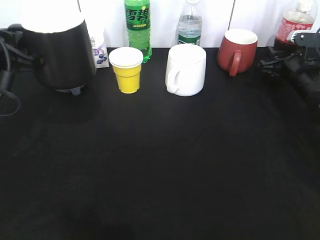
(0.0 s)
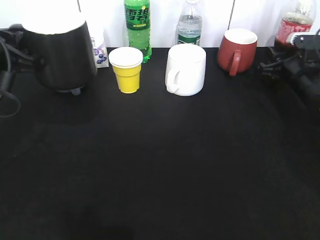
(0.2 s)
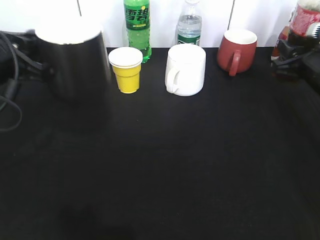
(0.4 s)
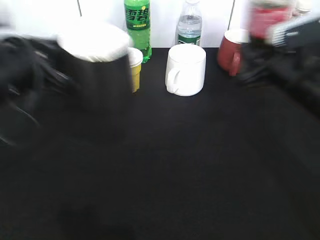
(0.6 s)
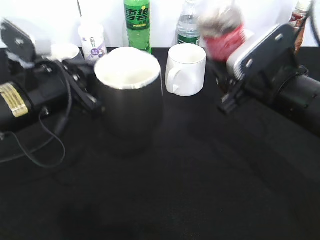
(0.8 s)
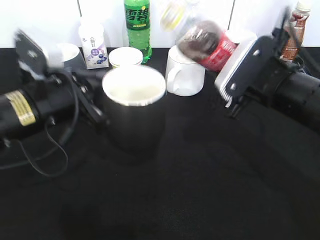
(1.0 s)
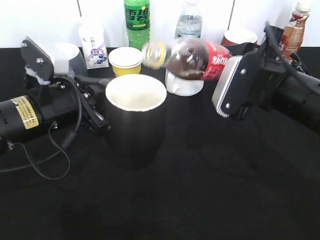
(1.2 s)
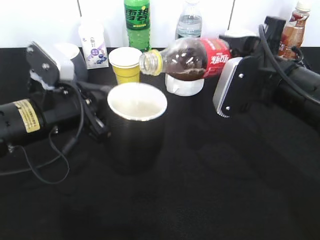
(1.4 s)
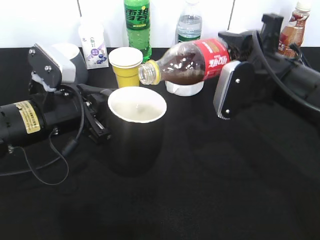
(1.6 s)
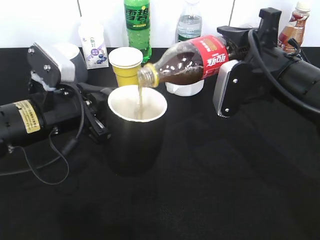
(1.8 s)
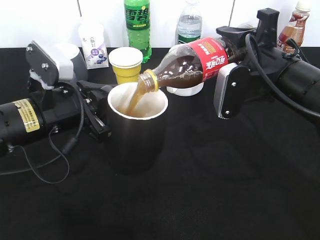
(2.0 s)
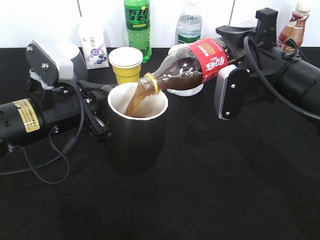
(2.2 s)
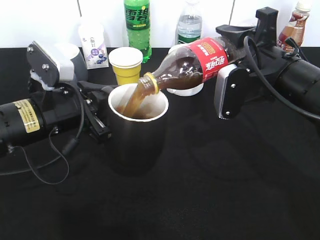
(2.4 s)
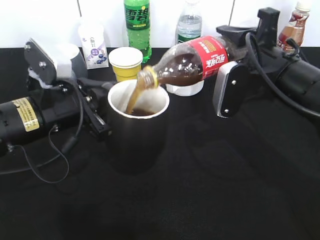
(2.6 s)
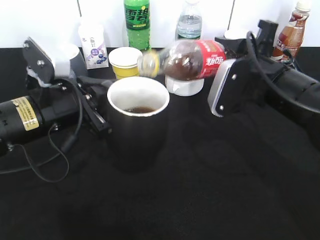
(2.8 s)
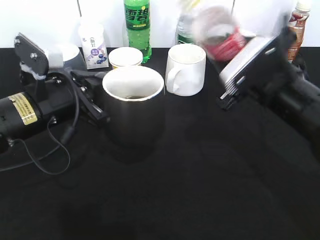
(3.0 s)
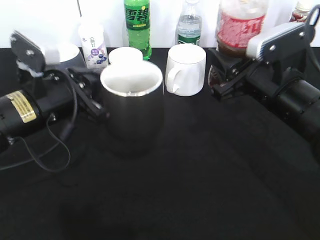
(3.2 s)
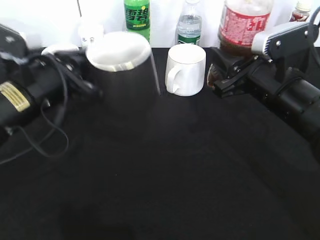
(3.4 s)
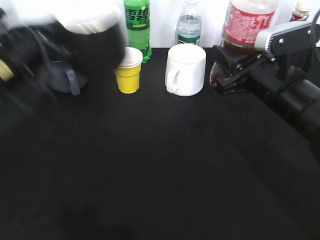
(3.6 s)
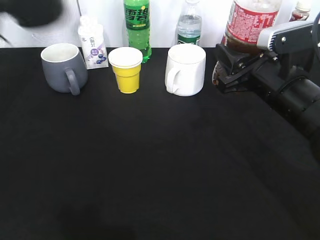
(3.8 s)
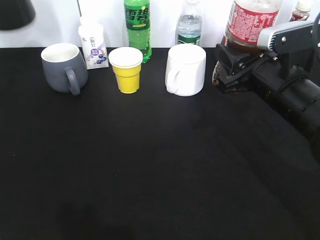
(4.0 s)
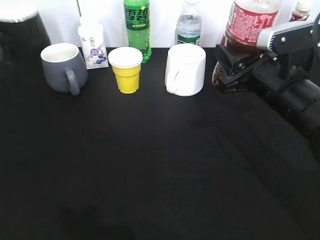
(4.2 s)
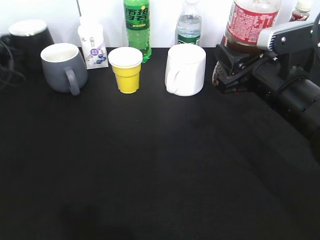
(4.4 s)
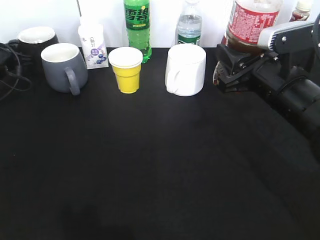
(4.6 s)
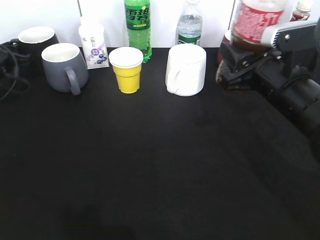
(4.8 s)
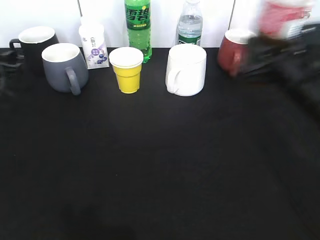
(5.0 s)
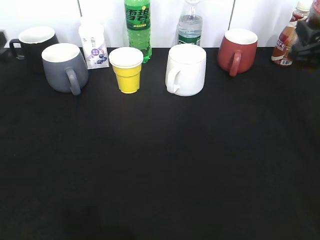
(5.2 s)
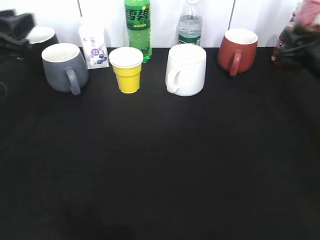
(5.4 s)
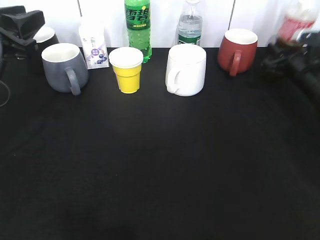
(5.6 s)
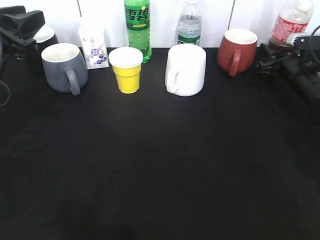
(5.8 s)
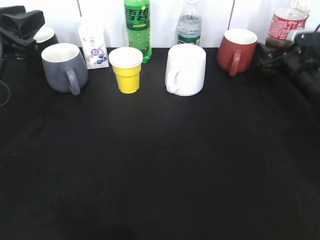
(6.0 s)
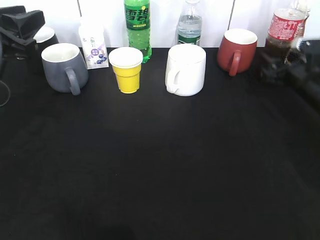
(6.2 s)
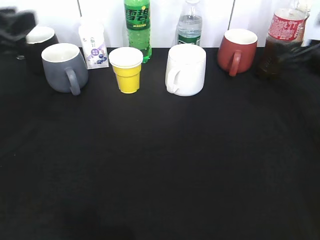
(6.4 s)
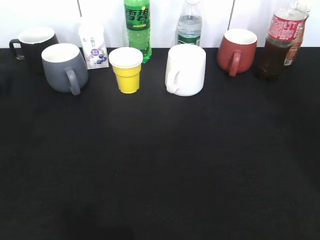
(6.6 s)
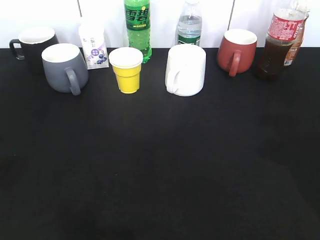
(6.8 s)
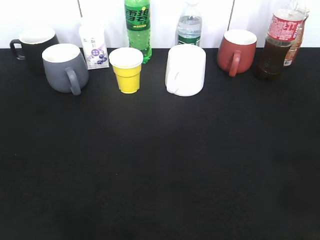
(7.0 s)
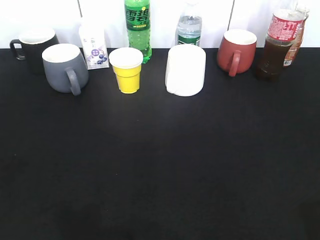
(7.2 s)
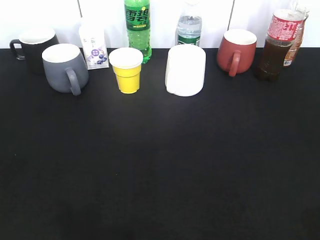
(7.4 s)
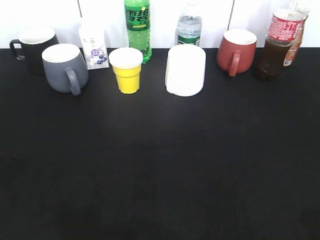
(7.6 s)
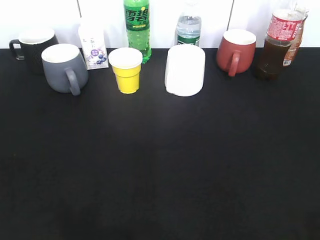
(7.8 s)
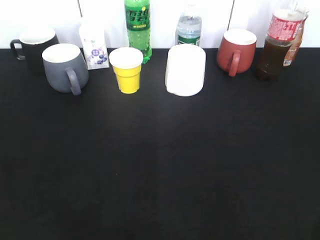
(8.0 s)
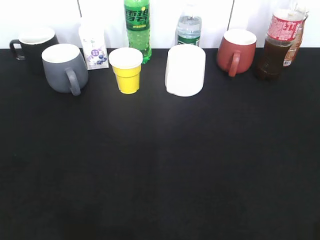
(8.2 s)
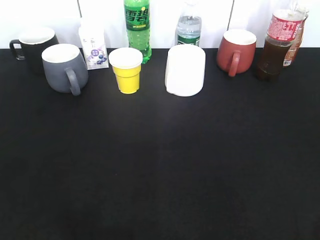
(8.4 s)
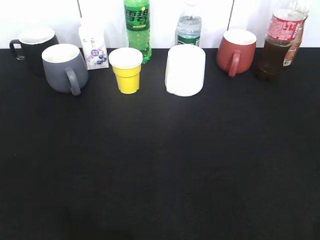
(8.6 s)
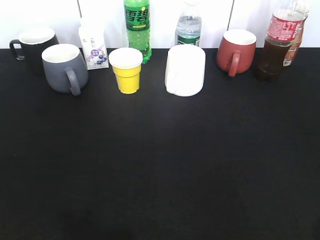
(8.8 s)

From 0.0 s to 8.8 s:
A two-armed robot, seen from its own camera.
Step, from 0.4 s to 2.8 s: Pour the cola from bottle to cup with right gripper.
Step, from 3.0 s to 5.2 s: Place the black cup on the table with left gripper.
Step, from 5.4 s to 6.4 s: Place the cola bottle on the table with right gripper.
From 0.0 s to 1.4 s: The left gripper is displaced to the right and downward by some 10 cm. Meanwhile the right gripper shifts approximately 20 cm backward, to the left and upward.
From 3.0 s to 4.4 s: The left gripper travels forward and to the left by some 30 cm.
From 4.4 s to 5.8 s: The right gripper heads forward, to the right and downward, covering some 20 cm, and opens its fingers. Meanwhile the left gripper heads backward, upward and to the right, covering about 25 cm, and opens up.
From 5.8 s to 7.4 s: The left gripper travels backward by about 25 cm. The right gripper moves backward and upward, some 40 cm.

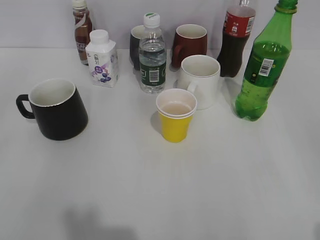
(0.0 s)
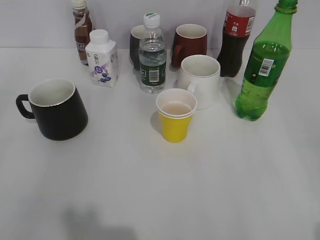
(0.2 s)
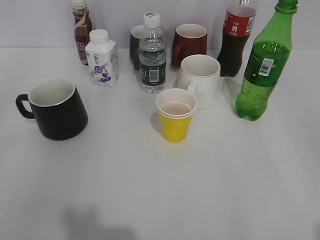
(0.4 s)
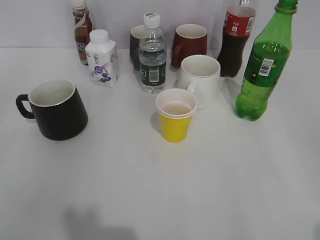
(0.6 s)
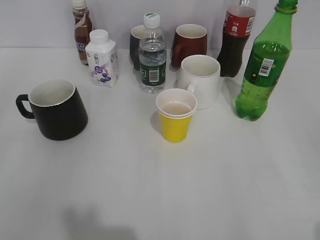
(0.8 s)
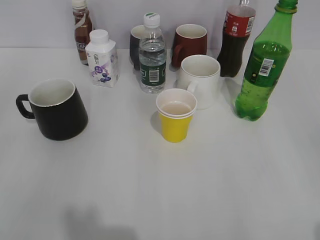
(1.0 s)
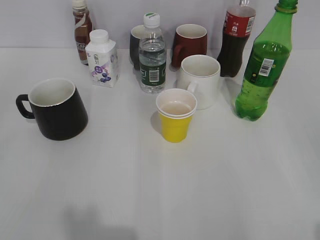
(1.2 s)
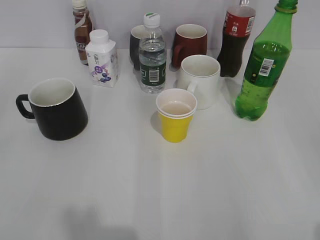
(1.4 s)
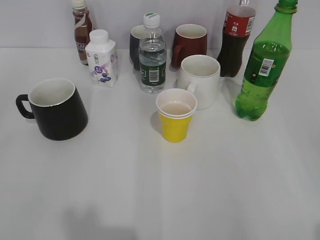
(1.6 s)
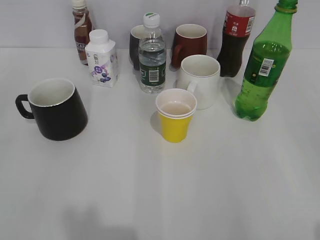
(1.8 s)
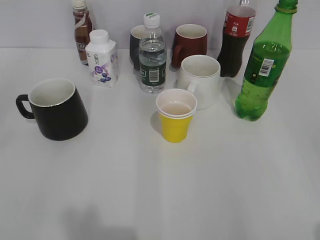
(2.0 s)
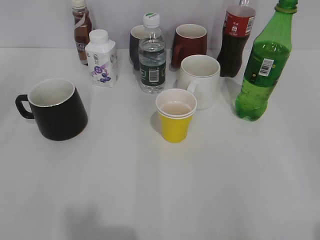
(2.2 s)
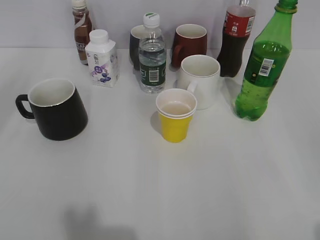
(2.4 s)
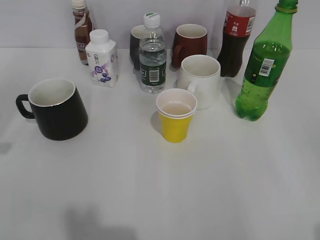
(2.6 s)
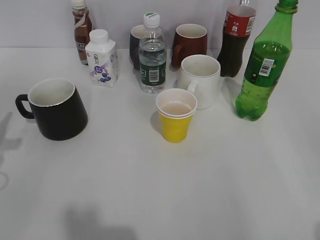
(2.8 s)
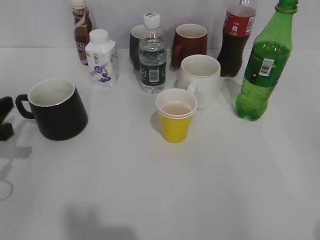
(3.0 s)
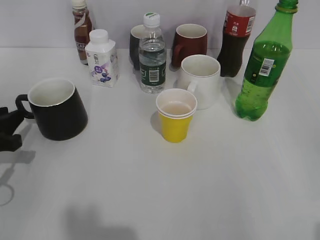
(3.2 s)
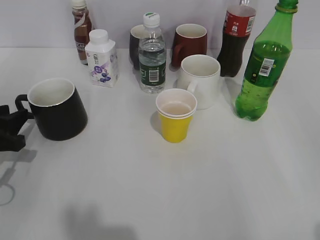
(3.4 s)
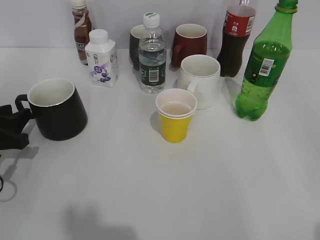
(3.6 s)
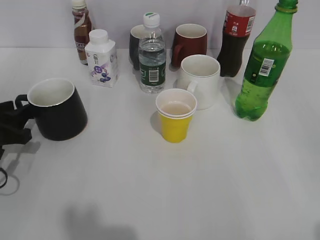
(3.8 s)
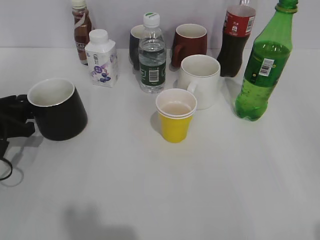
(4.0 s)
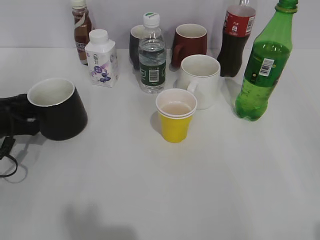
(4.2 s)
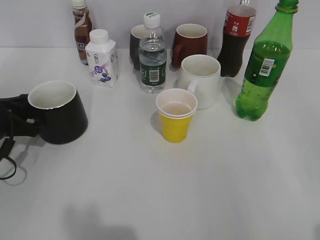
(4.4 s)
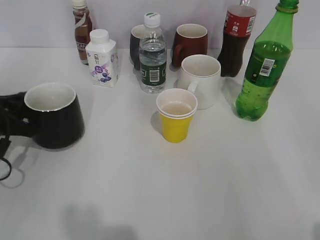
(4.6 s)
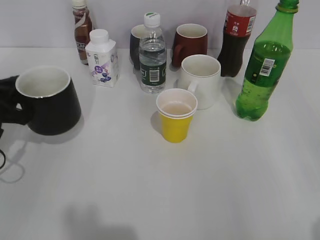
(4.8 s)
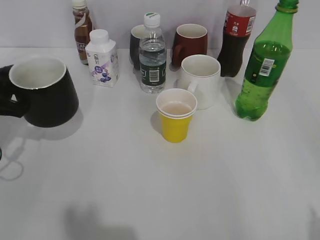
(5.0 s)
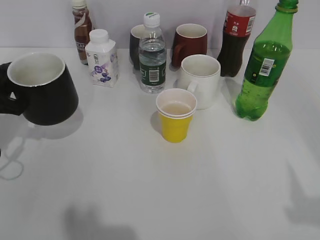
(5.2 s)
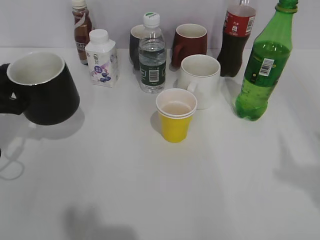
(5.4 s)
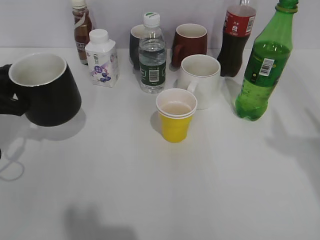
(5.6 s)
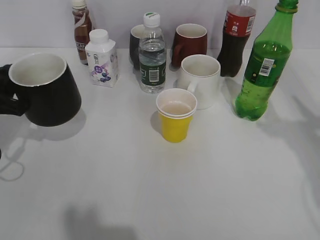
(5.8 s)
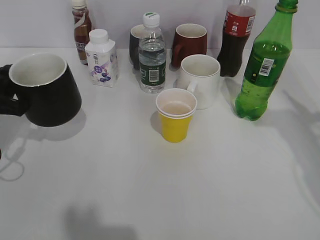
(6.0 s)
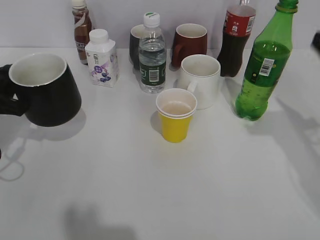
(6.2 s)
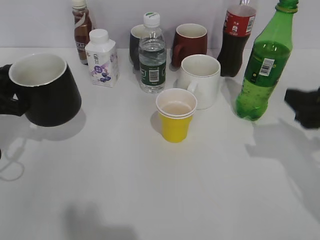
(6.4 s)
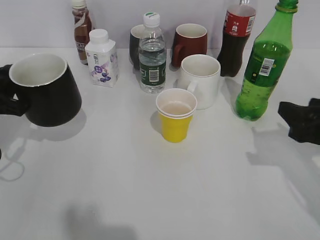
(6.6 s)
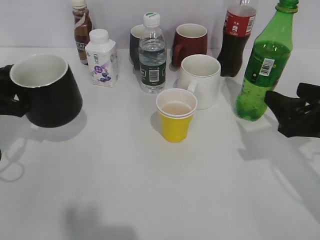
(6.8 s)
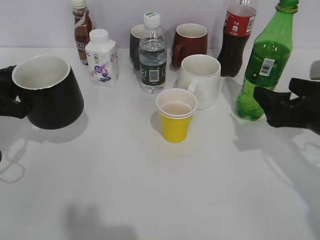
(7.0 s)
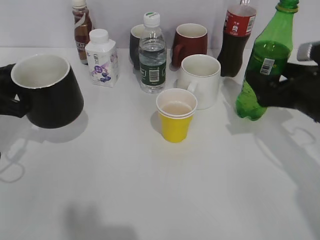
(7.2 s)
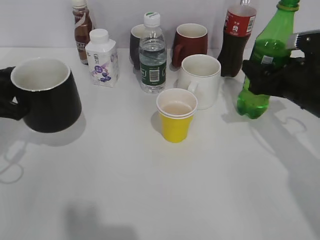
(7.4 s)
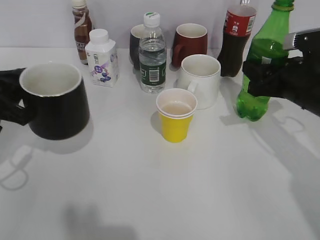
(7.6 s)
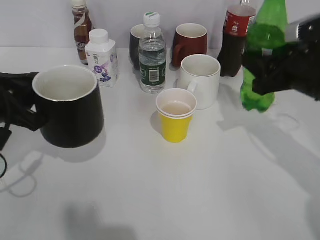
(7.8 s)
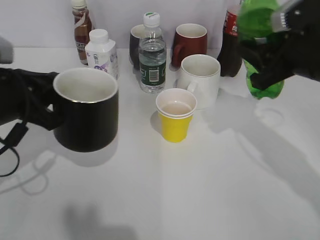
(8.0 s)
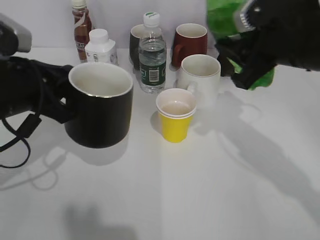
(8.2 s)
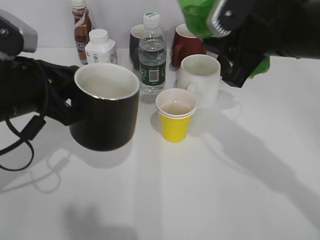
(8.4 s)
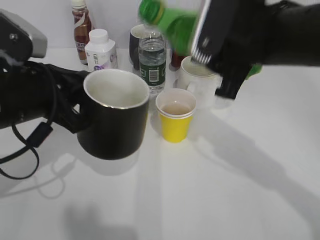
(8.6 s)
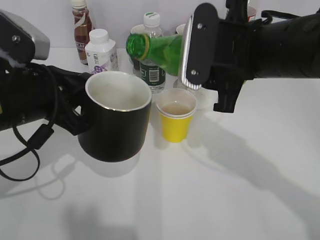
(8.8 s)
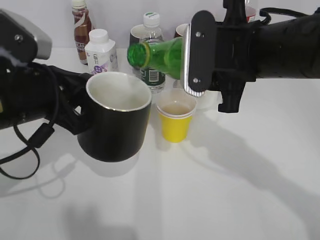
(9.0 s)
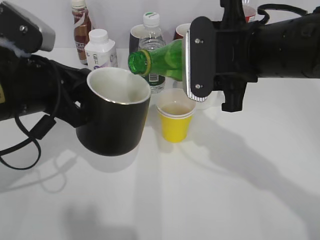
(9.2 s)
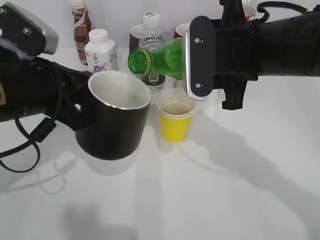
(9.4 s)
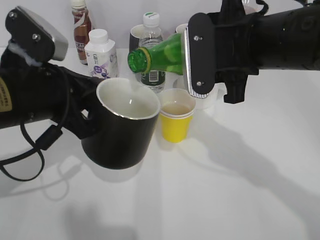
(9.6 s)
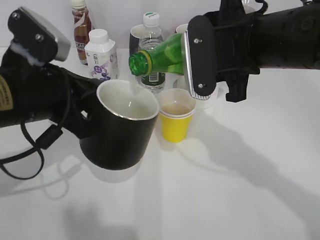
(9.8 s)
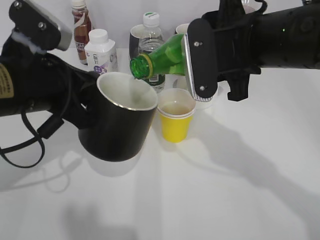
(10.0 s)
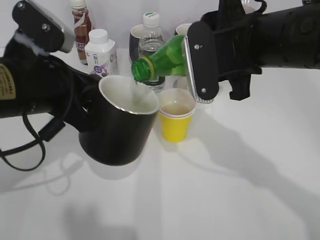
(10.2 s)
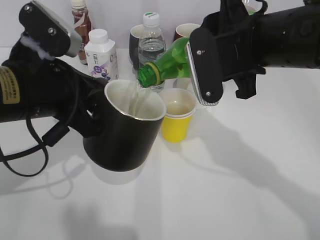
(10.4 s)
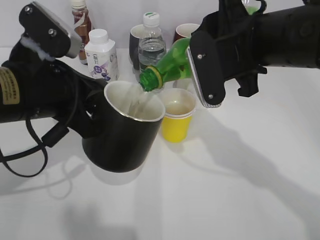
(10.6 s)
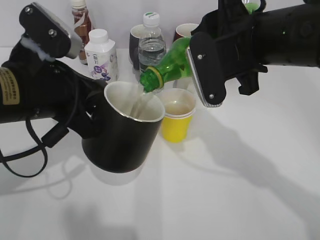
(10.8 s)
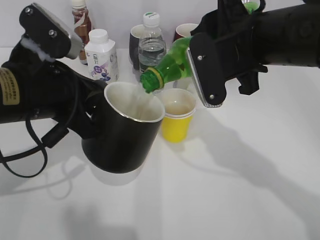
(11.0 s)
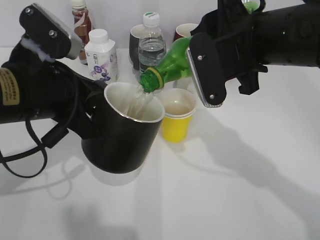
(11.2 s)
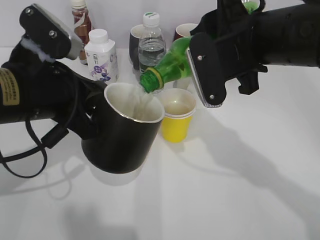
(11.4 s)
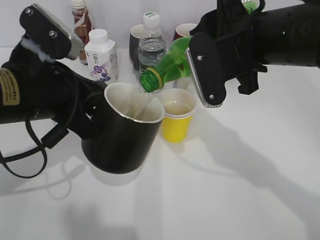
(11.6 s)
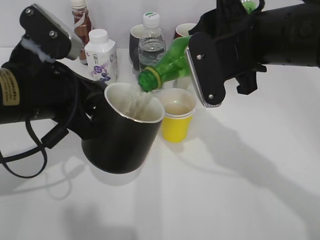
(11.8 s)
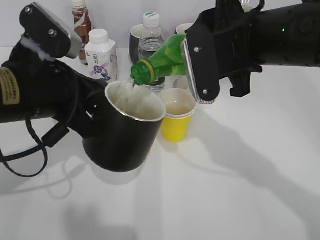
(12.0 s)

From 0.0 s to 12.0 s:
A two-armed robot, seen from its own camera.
Step, from 1.8 s to 4.2 s: Grasp the black cup with left gripper.
Step, from 4.4 s to 5.4 s: Lift the black cup with left gripper.
Step, from 5.6 s to 7.4 s: Grasp the bottle with sprite with right gripper.
From 1.6 s to 3.0 s: The left gripper goes roughly 25 cm forward and downward.
From 3.0 s to 4.4 s: The left gripper travels forward by about 5 cm, and closes.
From 4.4 s to 6.0 s: The left gripper goes approximately 5 cm upward, while the right gripper goes roughly 20 cm forward, and closes up.
From 6.0 s to 7.6 s: The right gripper heads downward, forward and to the left, covering some 15 cm, and closes.
From 7.6 s to 9.0 s: The left gripper is displaced to the right by about 10 cm. The right gripper moves to the left and upward, approximately 15 cm.
From 10.4 s to 12.0 s: The grippers move only a little.

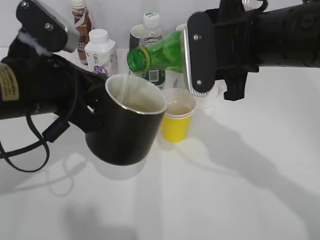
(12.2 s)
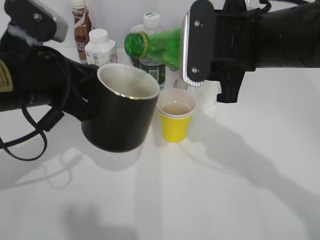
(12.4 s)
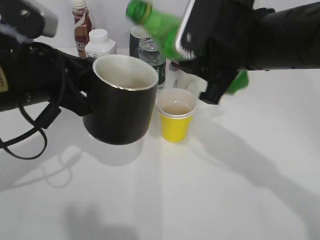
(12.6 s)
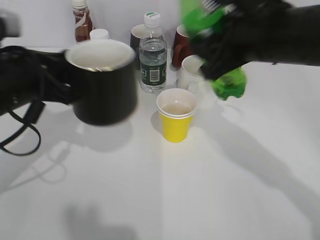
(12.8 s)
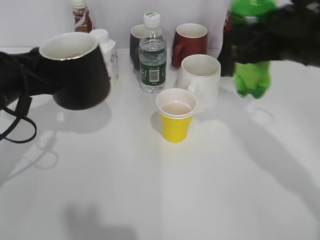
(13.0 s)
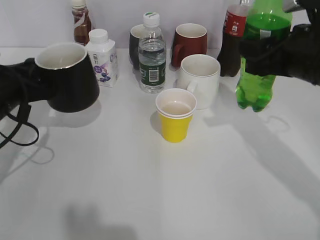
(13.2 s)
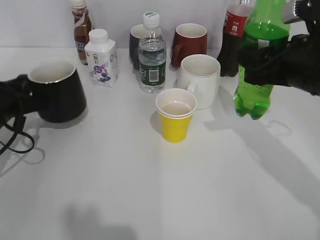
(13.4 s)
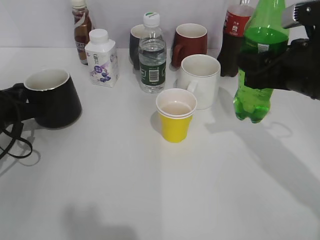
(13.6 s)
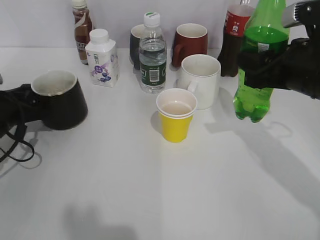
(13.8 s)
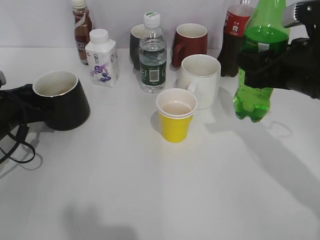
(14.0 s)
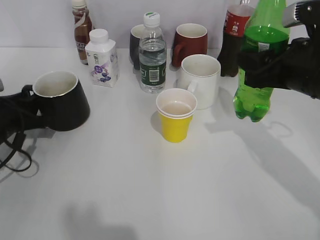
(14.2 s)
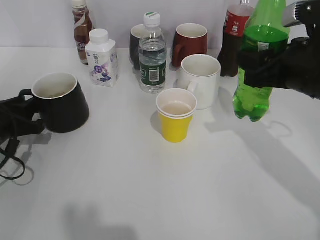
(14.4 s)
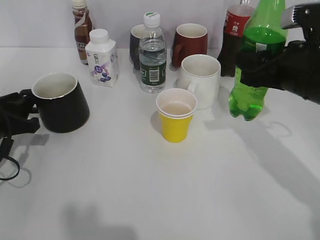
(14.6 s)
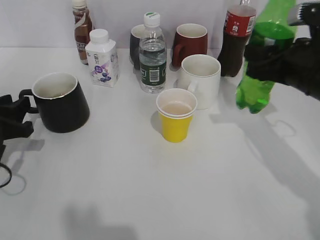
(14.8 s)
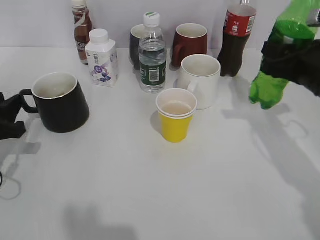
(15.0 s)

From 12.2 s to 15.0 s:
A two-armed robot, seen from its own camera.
Step, from 12.4 s to 14.2 s: Place the black cup on the table with left gripper.
From 12.2 s to 13.6 s: The left gripper travels to the left, downward and forward by approximately 20 cm; the right gripper is displaced to the right by some 10 cm.
From 13.6 s to 15.0 s: The left gripper is displaced backward by roughly 5 cm, and opens.
